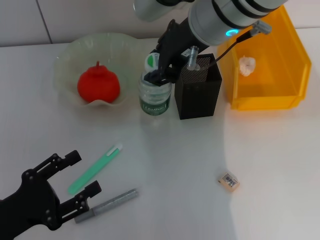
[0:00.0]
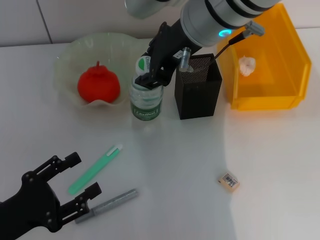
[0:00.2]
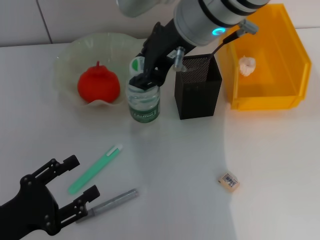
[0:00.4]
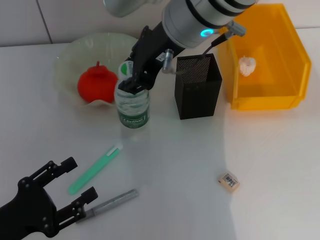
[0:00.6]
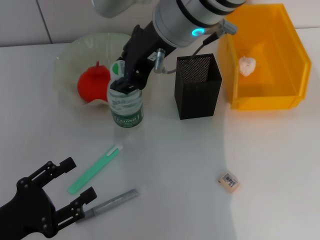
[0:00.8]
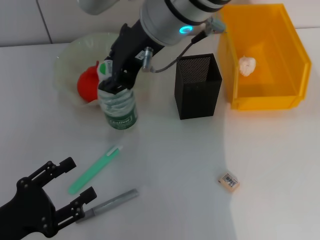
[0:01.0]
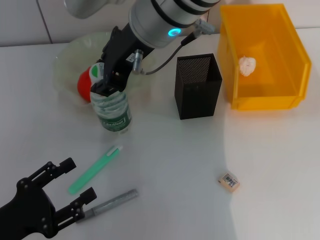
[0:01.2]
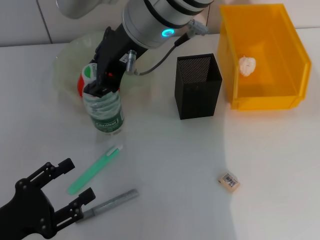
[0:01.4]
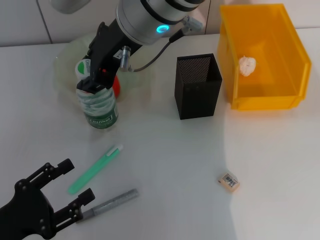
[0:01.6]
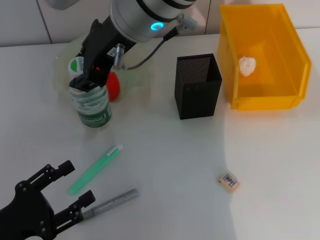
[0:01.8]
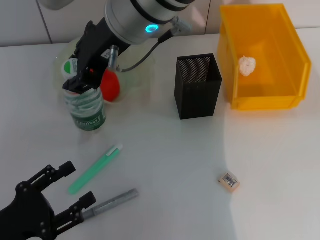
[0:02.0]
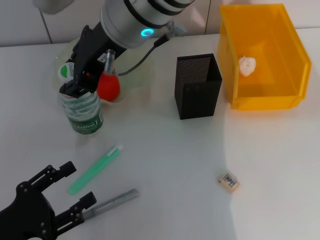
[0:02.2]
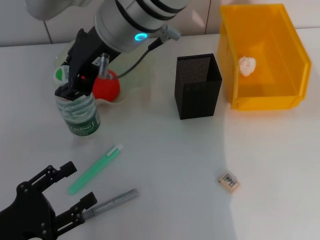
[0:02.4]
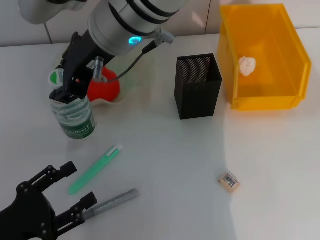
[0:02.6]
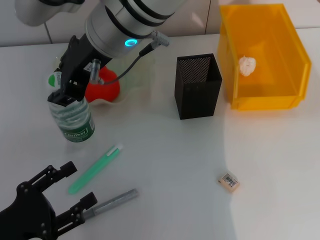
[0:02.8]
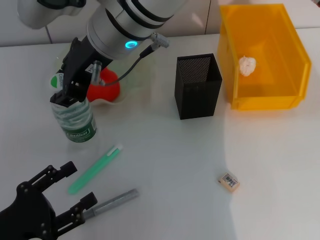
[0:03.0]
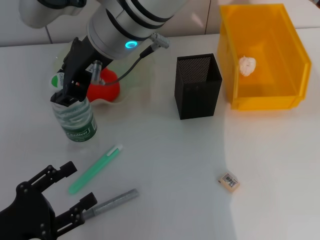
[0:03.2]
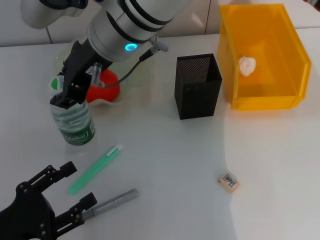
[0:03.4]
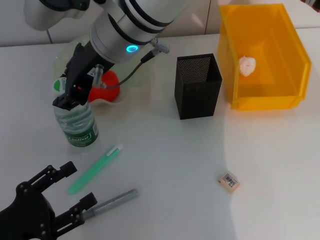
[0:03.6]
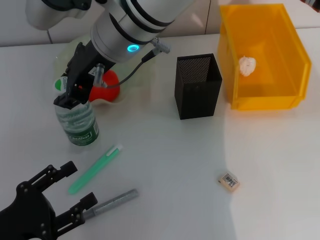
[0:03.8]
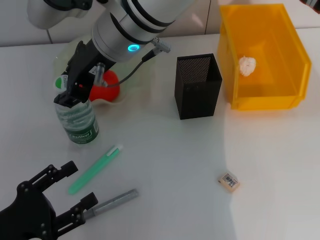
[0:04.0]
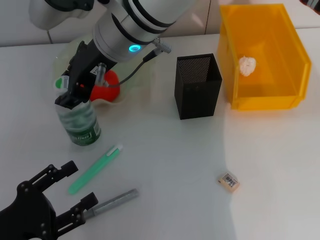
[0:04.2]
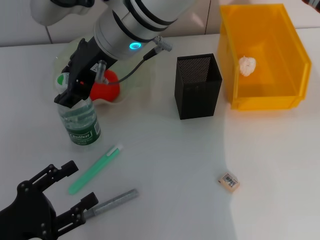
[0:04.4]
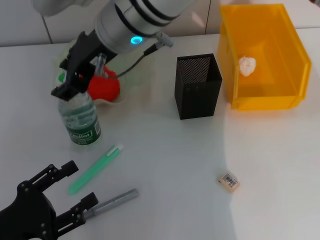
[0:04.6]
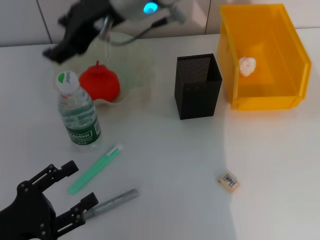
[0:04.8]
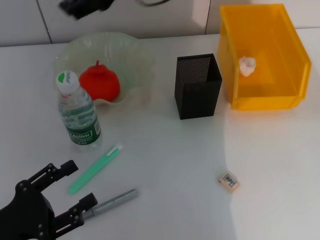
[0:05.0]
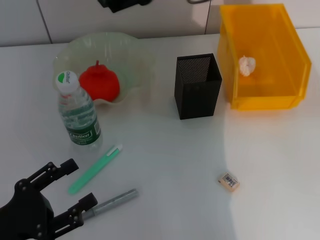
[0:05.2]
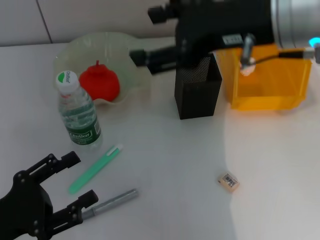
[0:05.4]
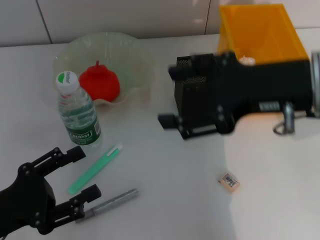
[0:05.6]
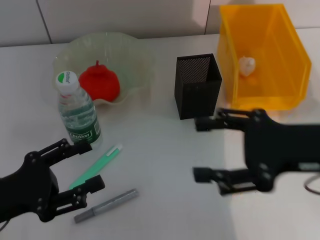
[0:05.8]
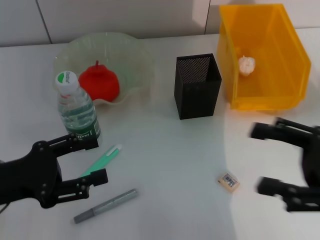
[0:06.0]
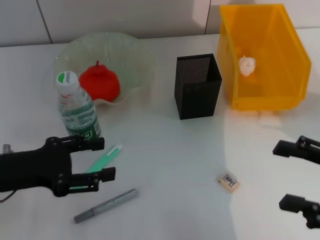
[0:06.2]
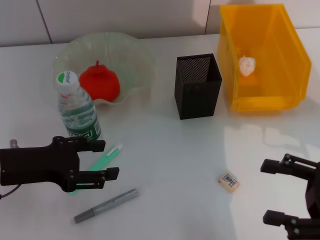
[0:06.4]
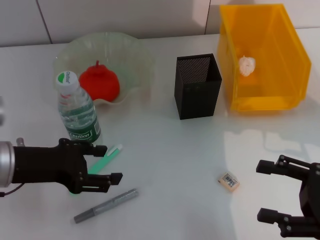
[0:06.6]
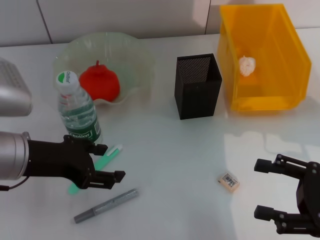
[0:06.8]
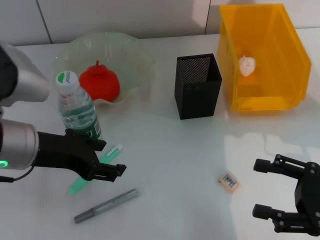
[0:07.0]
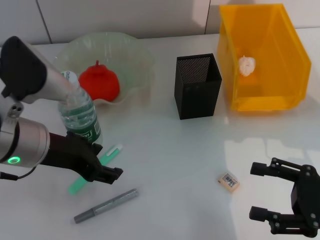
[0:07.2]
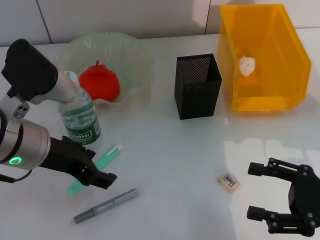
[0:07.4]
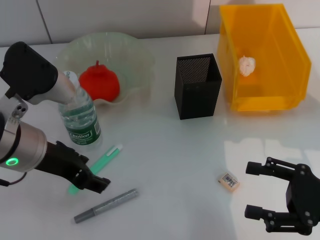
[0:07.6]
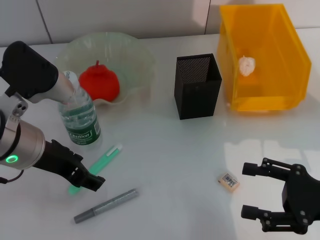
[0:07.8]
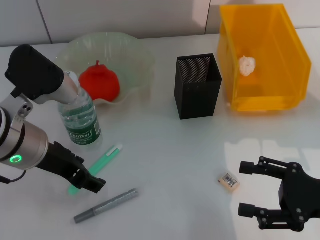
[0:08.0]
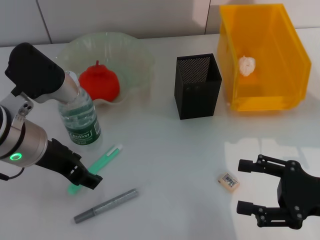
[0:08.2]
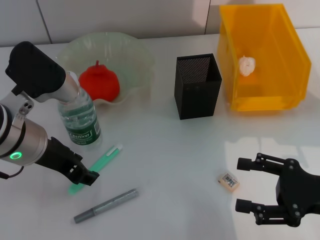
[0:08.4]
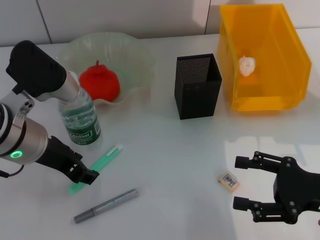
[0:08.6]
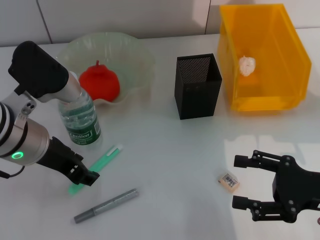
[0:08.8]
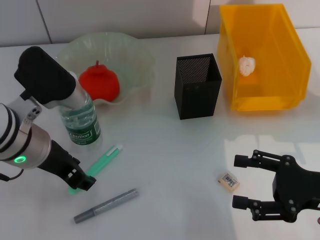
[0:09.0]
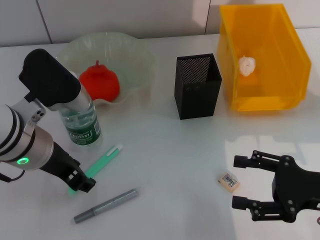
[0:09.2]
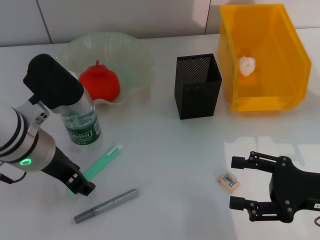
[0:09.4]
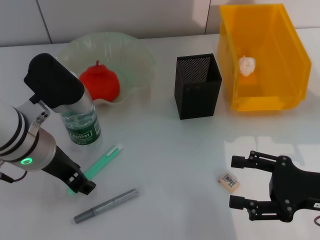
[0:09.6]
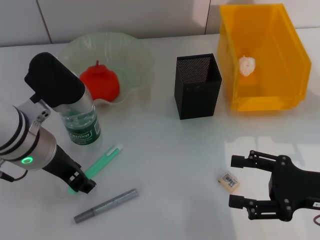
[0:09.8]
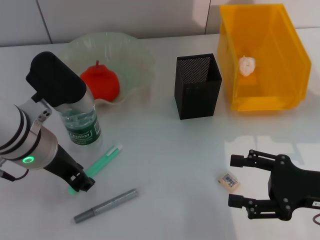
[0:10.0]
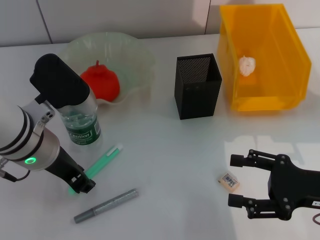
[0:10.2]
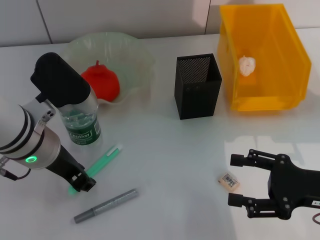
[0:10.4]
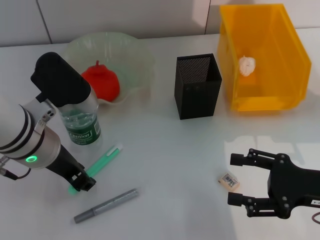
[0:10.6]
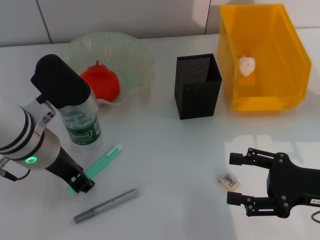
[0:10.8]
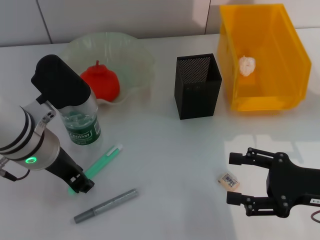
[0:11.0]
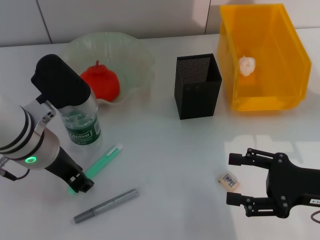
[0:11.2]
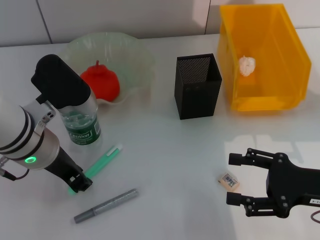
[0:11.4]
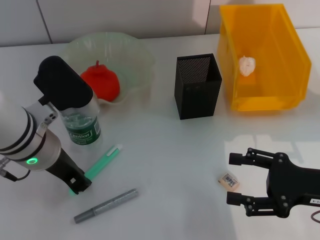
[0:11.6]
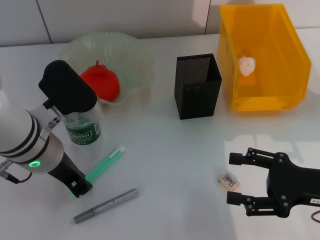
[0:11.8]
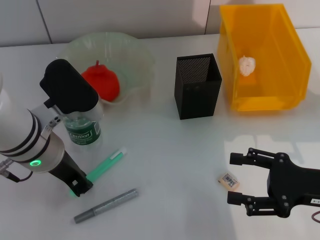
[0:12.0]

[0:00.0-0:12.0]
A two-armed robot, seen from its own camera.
Step, 0:00.0 to 0:04.4: Place the water bottle on the table with the right hand.
Step, 0:04.8 to 0:11.8: Grab the blue utility knife with the left hand.
0:00.0 to 0:01.6: The right gripper shifts roughly 5 cm to the left.
0:01.6 to 0:04.4: The grippers stay close to where they were, moving slightly.
0:04.4 to 0:06.0: The right gripper travels to the right and backward by roughly 35 cm, and opens. The left gripper goes roughly 10 cm forward and upward.
0:06.0 to 0:07.6: The left gripper shifts approximately 15 cm to the right, upward and forward. Meanwhile the right gripper is displaced downward by approximately 5 cm.
0:07.6 to 0:10.4: The grippers stay close to where they were, moving slightly.
0:10.4 to 0:12.0: Both grippers stay about where they are.

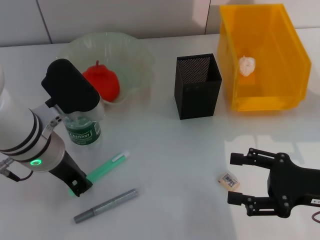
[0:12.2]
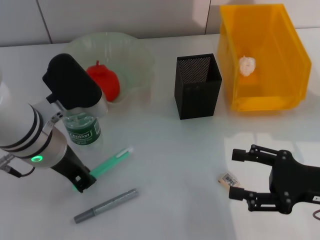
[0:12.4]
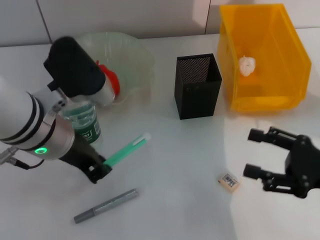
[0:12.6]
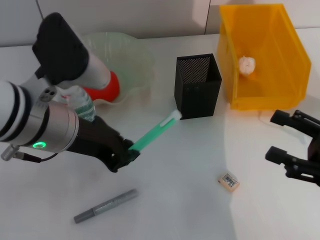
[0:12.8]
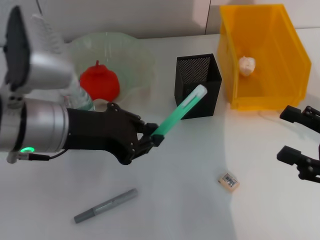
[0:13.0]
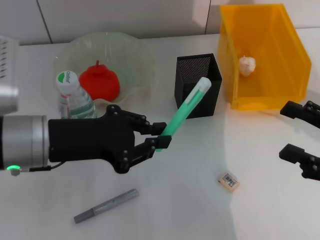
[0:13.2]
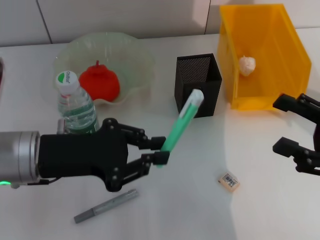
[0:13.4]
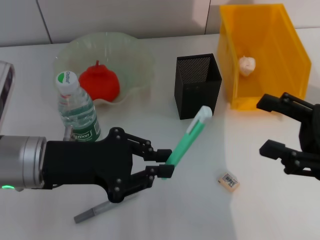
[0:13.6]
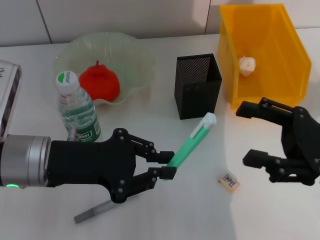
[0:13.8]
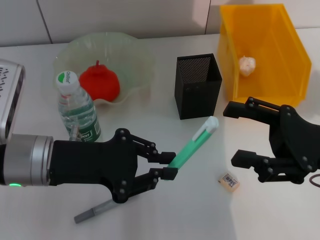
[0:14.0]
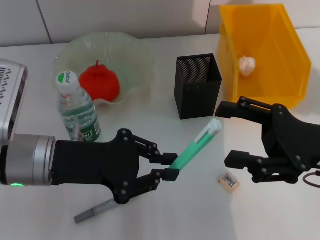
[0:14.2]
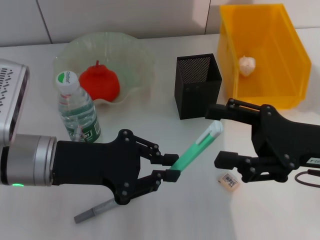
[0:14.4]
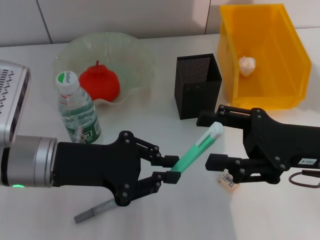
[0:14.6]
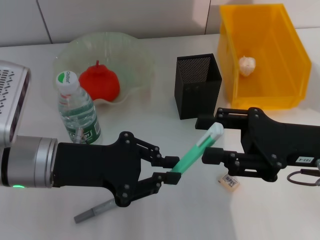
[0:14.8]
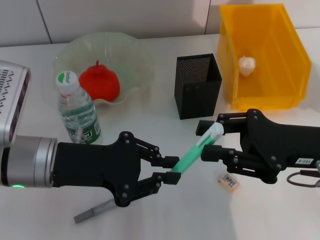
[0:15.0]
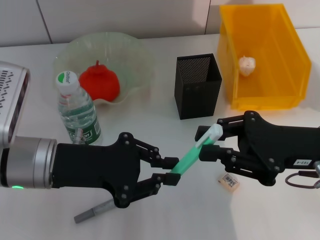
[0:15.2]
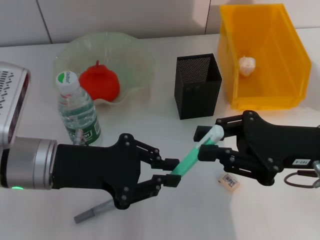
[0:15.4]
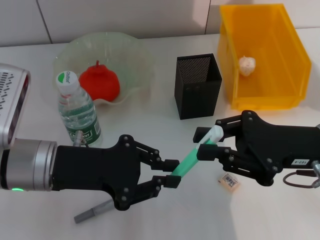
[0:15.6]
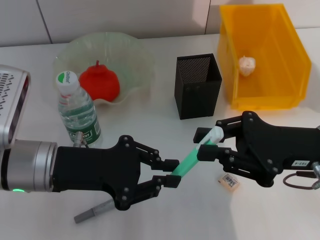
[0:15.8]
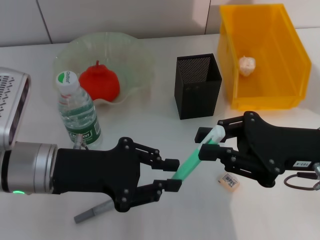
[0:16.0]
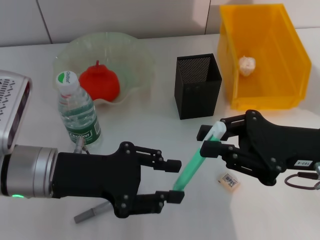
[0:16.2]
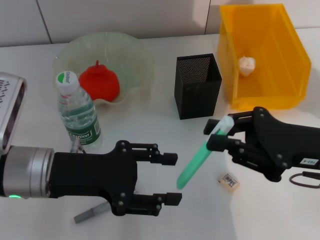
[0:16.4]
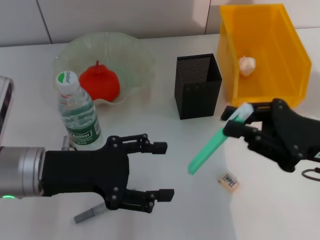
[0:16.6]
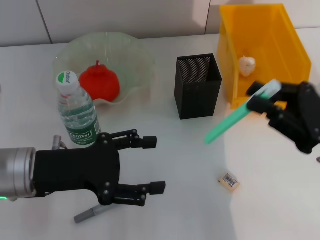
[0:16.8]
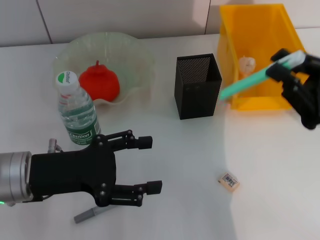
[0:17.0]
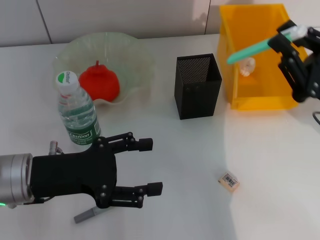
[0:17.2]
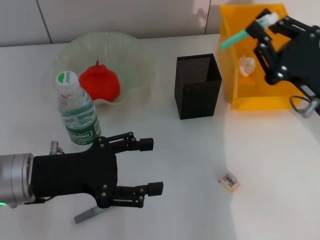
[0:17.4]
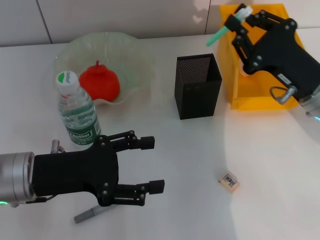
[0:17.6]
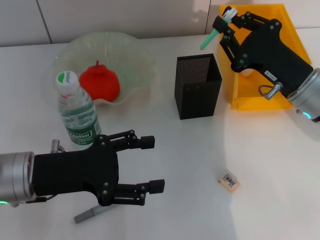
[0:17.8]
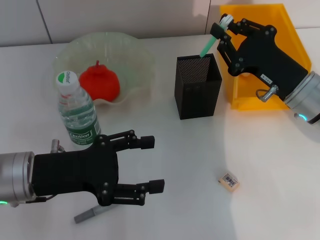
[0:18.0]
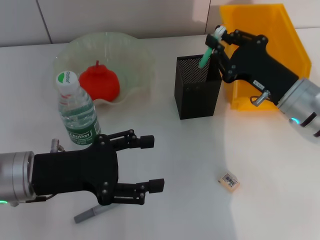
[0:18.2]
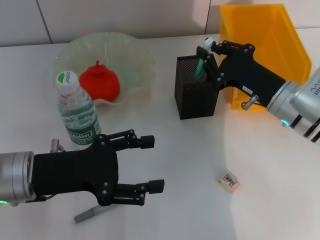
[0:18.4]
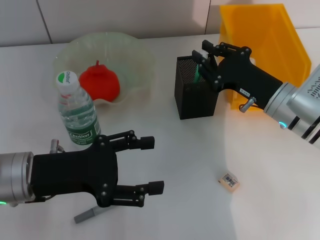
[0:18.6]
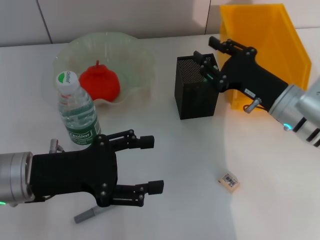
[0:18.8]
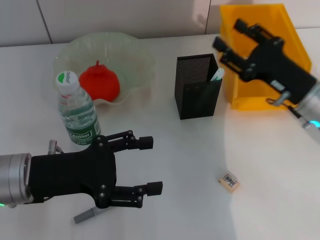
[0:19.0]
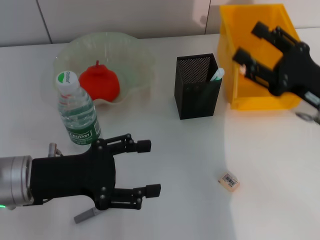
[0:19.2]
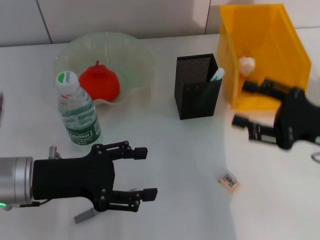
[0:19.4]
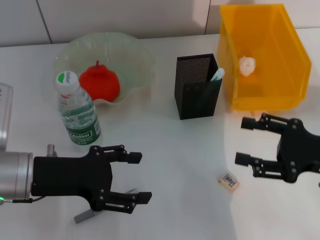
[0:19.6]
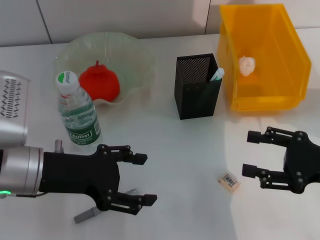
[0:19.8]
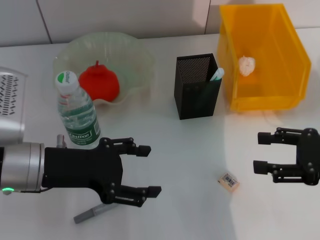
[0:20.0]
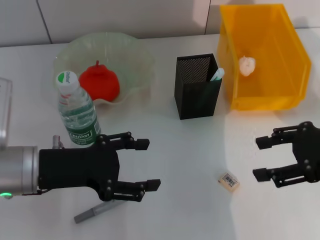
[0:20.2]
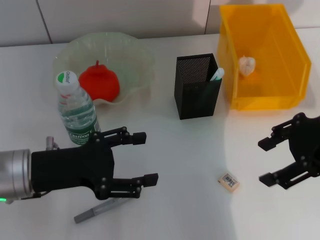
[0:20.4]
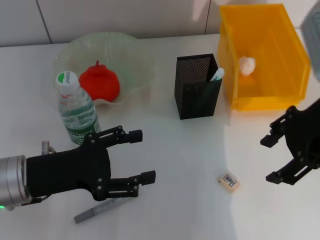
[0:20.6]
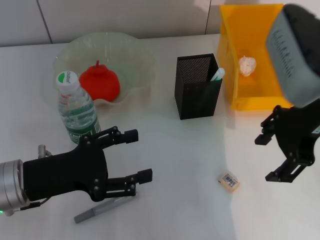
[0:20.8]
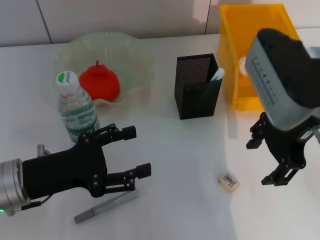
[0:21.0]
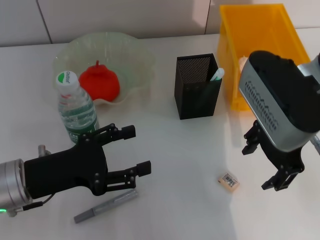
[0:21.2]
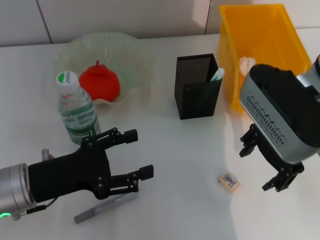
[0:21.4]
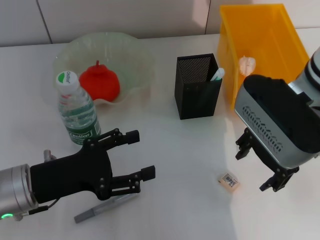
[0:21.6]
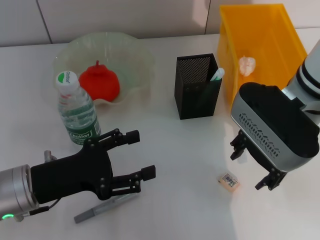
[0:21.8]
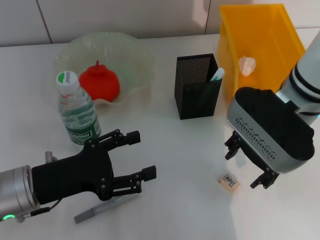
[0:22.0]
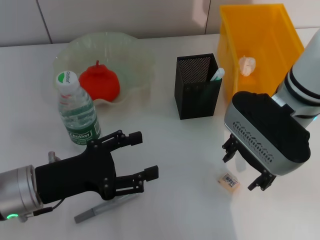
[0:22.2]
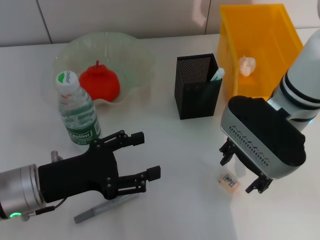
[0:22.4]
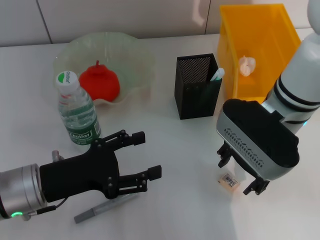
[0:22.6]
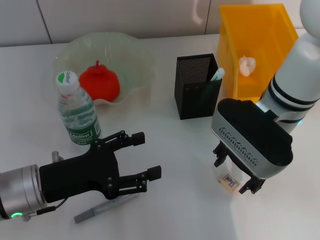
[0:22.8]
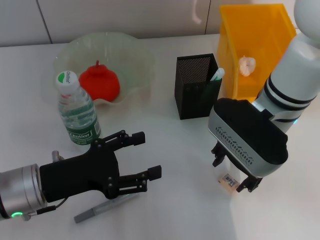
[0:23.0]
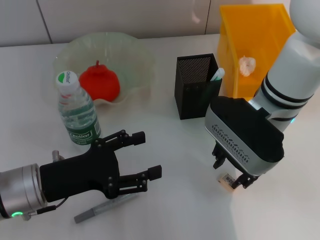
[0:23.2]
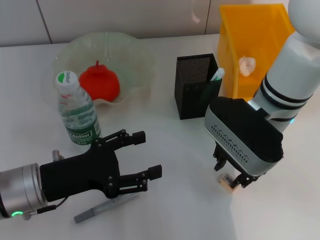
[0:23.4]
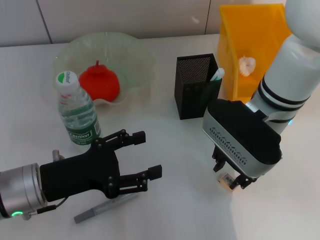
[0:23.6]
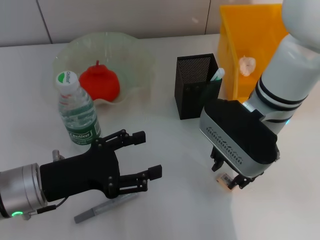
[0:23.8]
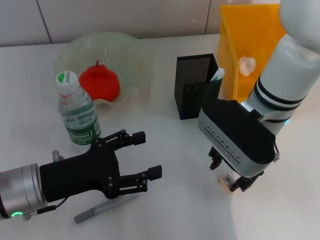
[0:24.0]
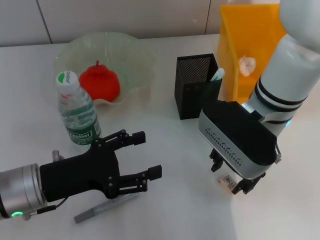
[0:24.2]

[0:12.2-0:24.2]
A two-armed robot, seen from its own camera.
Step, 0:12.2 to 0:16.2: Pass the blue utility knife from the left hand to the right hand.
Step, 0:16.4 to 0:18.6: Place the blue utility knife into the pen holder with the right hand.
0:12.2 to 0:13.8: The right gripper shifts by approximately 5 cm. Meanwhile the left gripper moves approximately 5 cm.
0:13.8 to 0:15.2: The right gripper closes.
0:15.2 to 0:16.6: The left gripper opens up. Meanwhile the right gripper closes.
0:16.6 to 0:18.2: The right gripper moves forward, roughly 10 cm.
0:18.2 to 0:19.8: The right gripper heads backward and to the right, covering roughly 15 cm, and opens its fingers.
0:19.8 to 0:21.2: The right gripper is displaced to the left, upward and forward by roughly 20 cm. Meanwhile the left gripper shifts by some 5 cm.
0:21.2 to 0:22.6: The right gripper shifts some 5 cm downward.
0:22.6 to 0:24.2: The grippers move only a little.
